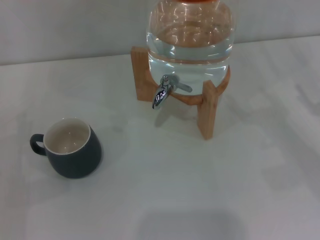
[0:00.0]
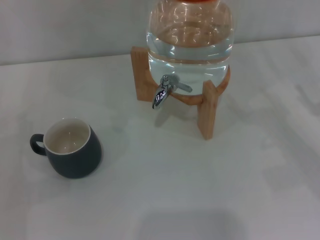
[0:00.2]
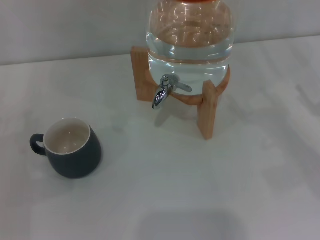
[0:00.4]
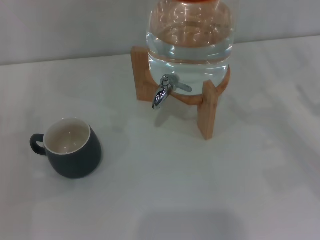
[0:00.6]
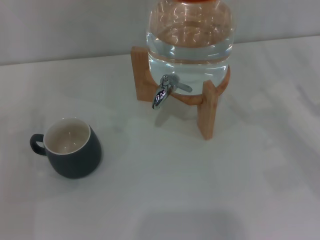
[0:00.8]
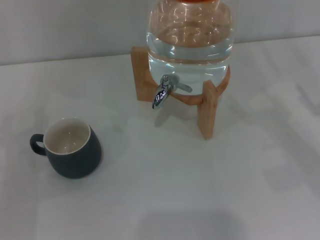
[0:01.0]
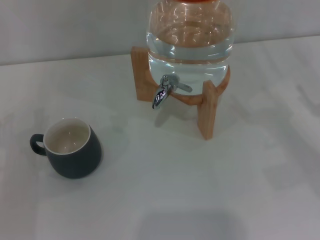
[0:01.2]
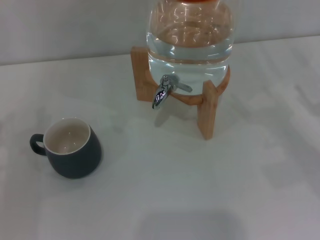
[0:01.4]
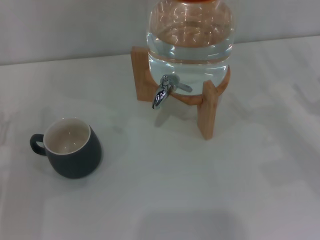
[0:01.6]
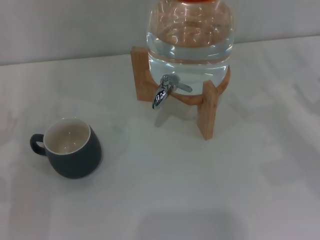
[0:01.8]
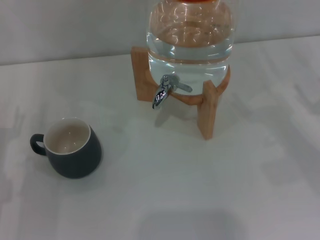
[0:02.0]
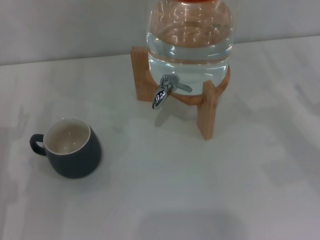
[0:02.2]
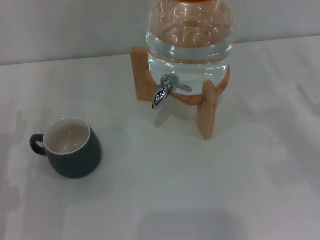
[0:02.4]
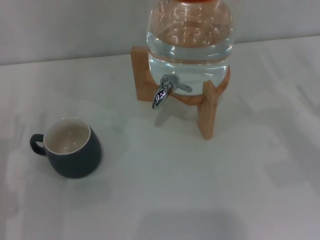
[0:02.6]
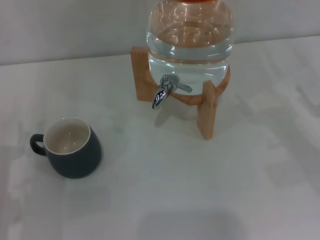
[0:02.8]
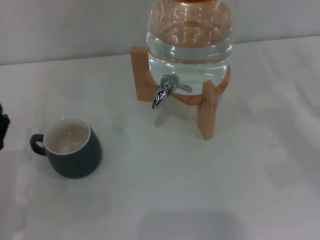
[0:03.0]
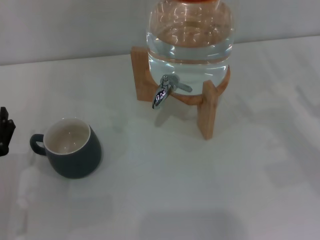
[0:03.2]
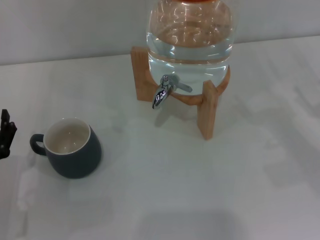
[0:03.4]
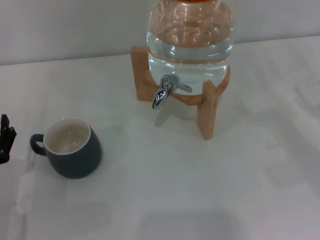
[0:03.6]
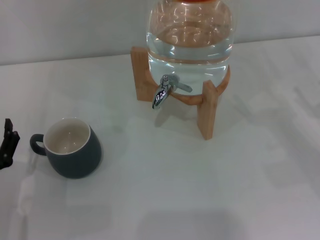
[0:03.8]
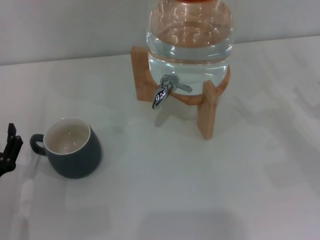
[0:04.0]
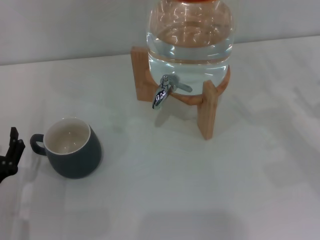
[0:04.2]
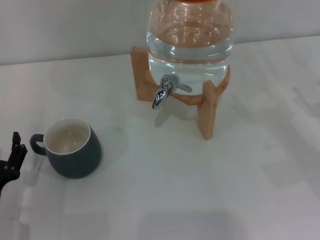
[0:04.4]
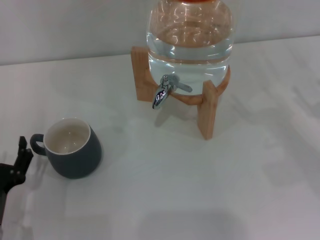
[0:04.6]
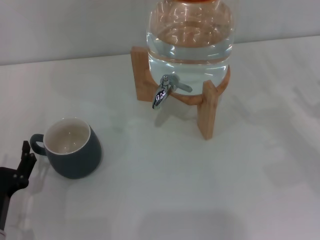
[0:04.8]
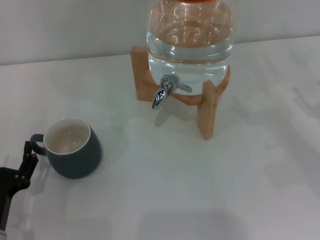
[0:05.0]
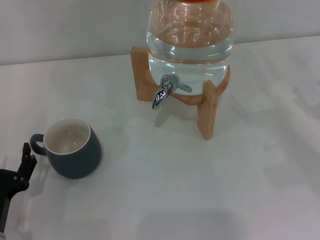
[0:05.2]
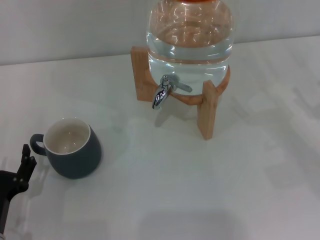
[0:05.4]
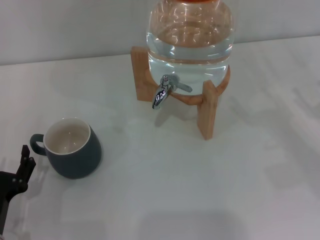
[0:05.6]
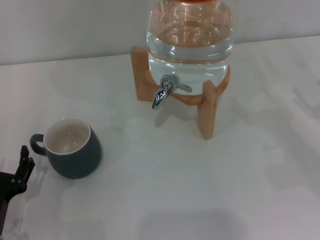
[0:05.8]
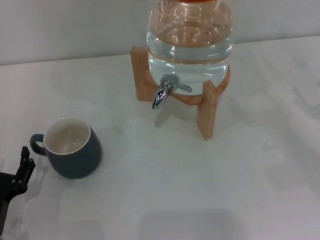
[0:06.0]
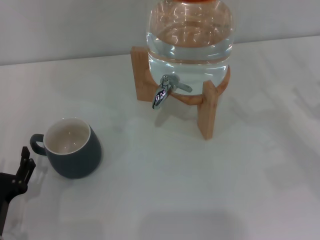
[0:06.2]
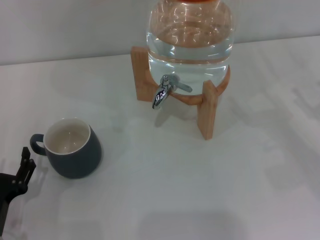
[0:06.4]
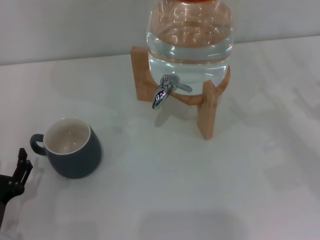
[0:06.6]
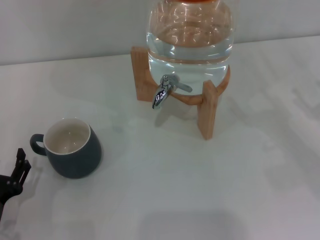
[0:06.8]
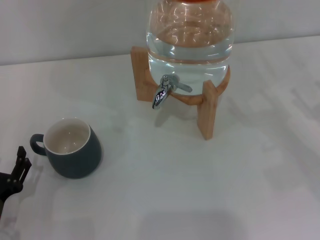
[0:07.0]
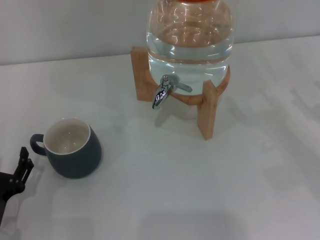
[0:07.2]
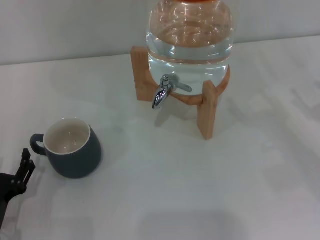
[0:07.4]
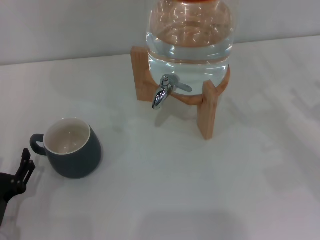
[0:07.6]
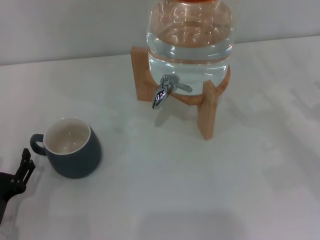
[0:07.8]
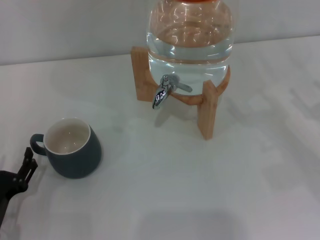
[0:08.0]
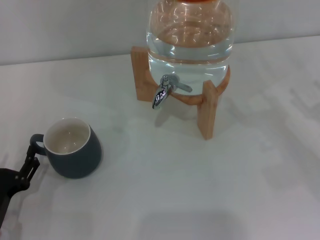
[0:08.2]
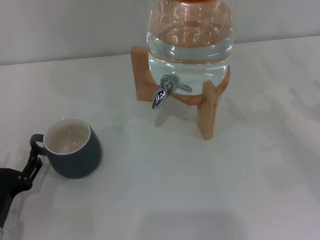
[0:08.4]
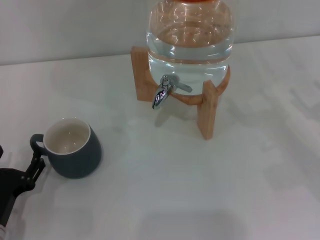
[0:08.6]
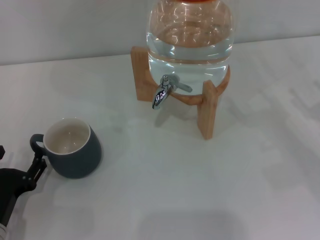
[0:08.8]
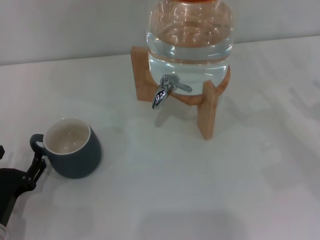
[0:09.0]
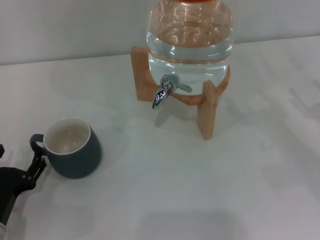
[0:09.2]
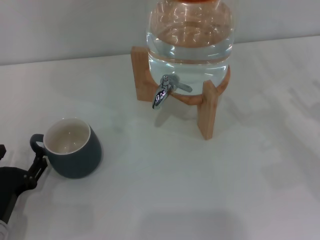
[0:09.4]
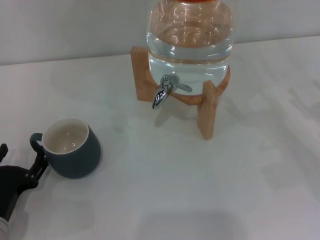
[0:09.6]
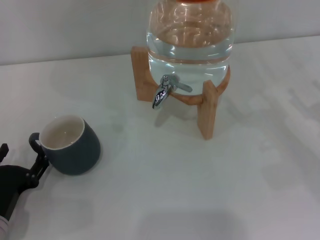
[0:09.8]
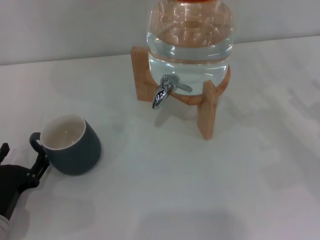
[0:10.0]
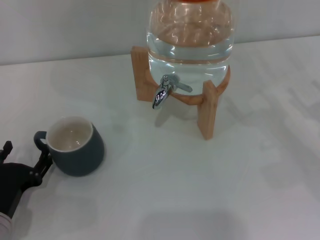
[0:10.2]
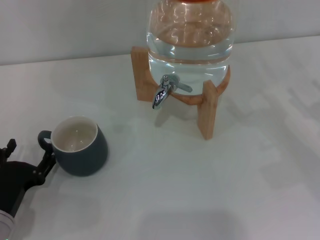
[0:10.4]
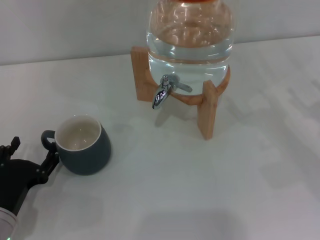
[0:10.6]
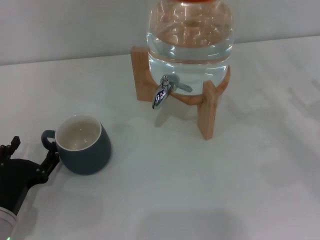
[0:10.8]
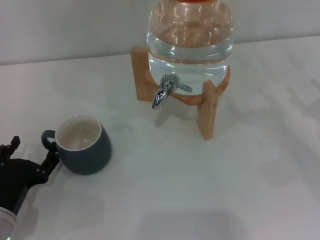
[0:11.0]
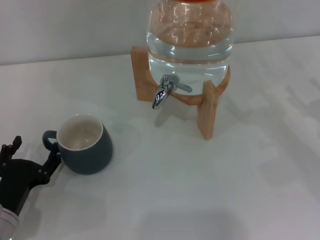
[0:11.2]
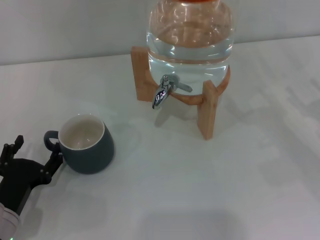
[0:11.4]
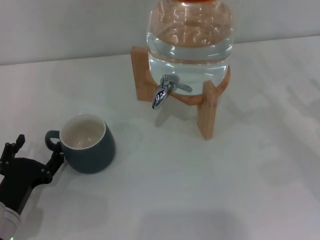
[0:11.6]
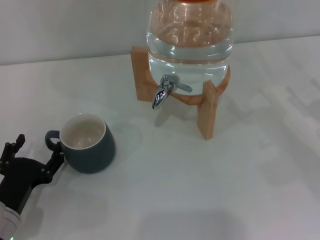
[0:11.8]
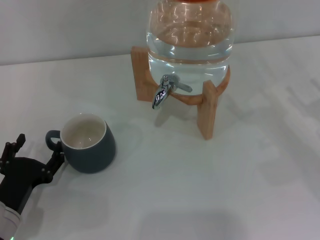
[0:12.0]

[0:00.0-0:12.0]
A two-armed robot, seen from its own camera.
Task of the whole recording: the left gripper pick up the black cup and place it horizontally under the faucet, the right gripper turn on the faucet to fill the cup, and then turn off the faucet.
0:03.0 to 0:06.0: The grippers move only a little.
0:07.6 to 0:12.0: The grippers move only a little.

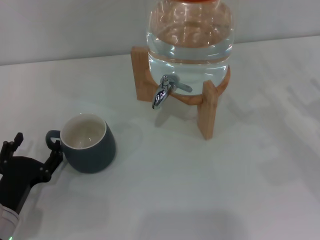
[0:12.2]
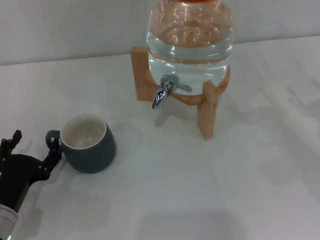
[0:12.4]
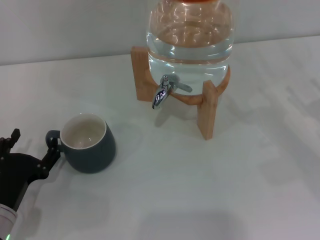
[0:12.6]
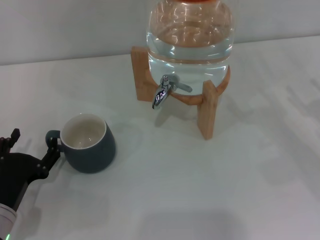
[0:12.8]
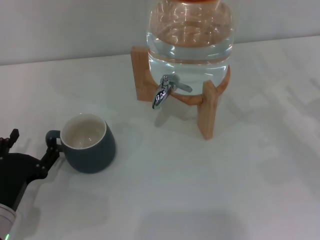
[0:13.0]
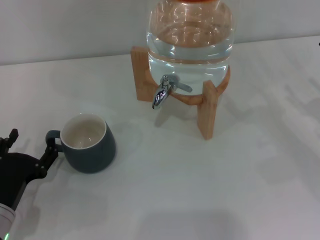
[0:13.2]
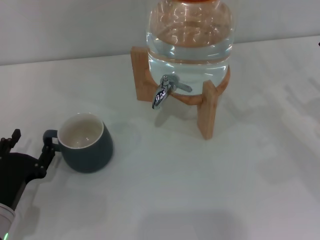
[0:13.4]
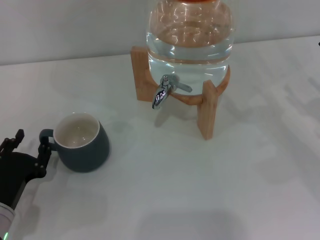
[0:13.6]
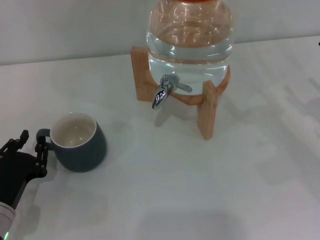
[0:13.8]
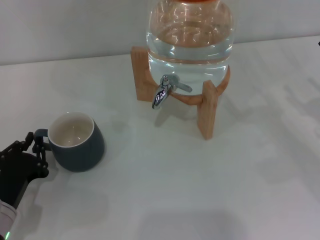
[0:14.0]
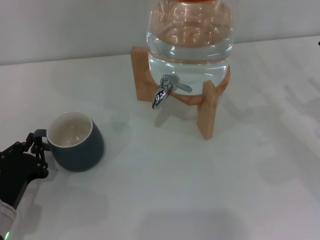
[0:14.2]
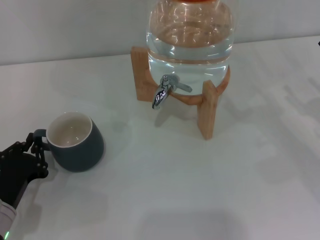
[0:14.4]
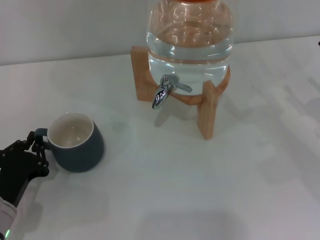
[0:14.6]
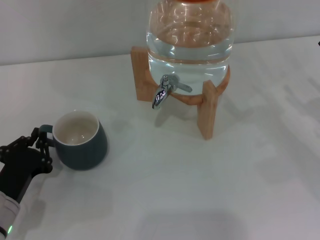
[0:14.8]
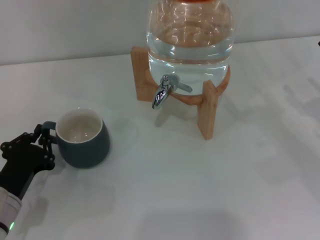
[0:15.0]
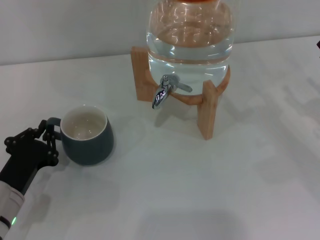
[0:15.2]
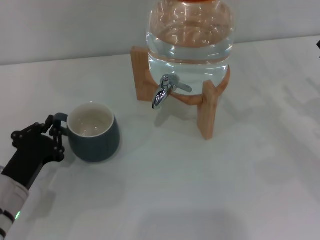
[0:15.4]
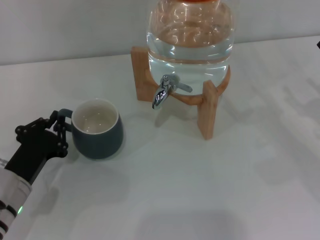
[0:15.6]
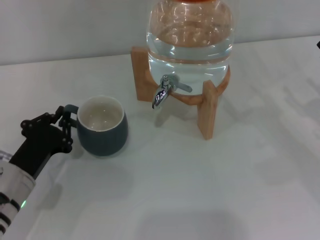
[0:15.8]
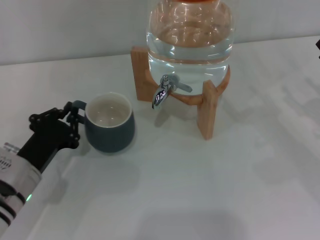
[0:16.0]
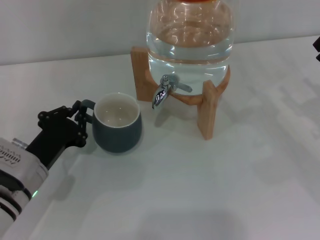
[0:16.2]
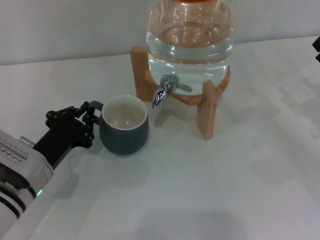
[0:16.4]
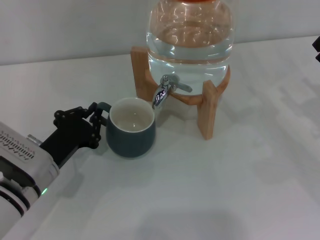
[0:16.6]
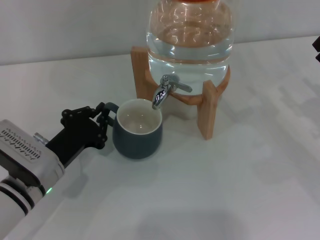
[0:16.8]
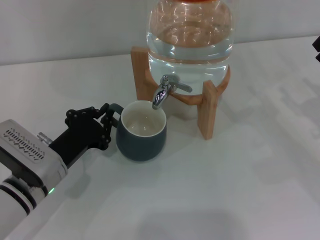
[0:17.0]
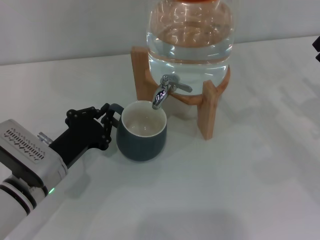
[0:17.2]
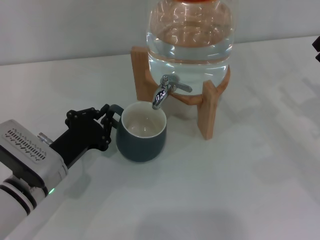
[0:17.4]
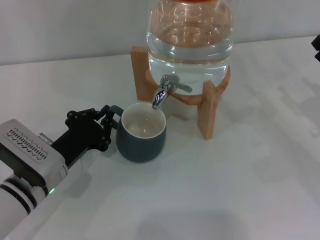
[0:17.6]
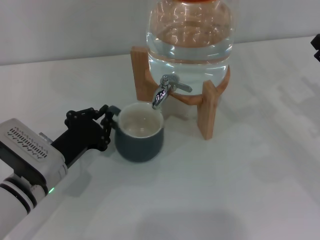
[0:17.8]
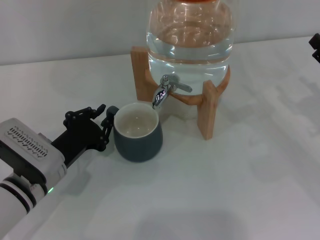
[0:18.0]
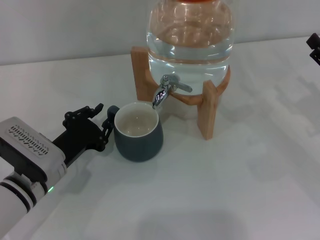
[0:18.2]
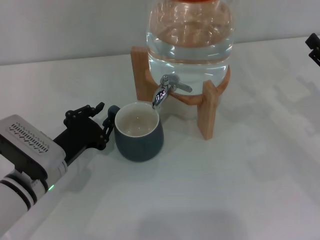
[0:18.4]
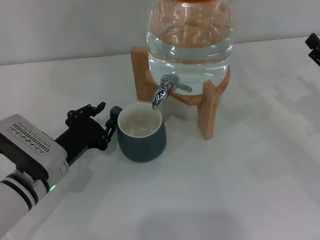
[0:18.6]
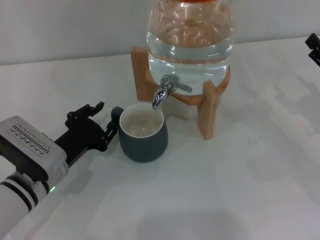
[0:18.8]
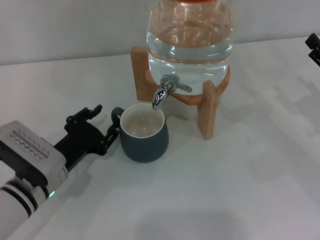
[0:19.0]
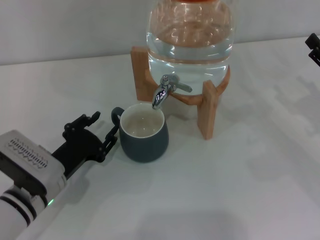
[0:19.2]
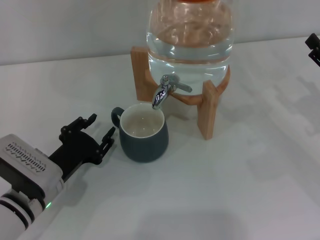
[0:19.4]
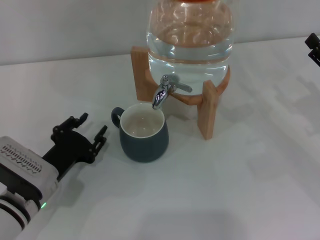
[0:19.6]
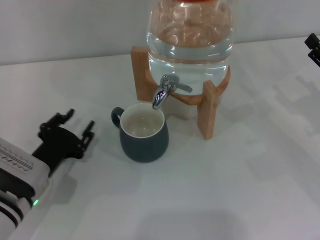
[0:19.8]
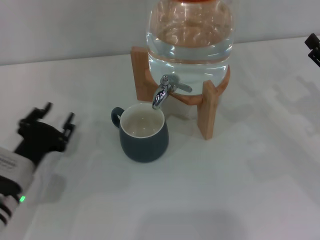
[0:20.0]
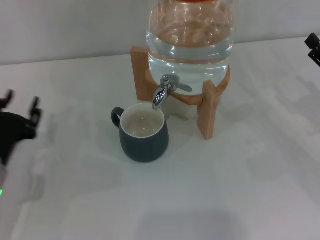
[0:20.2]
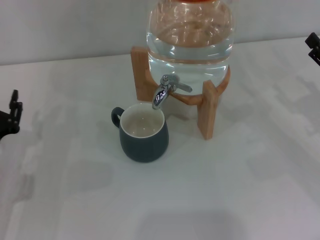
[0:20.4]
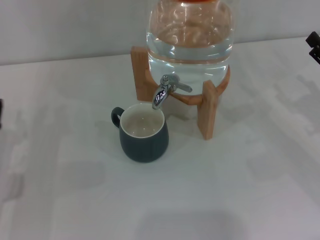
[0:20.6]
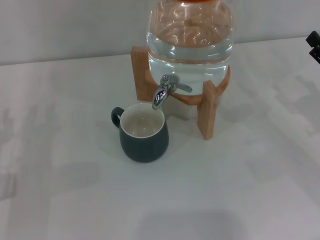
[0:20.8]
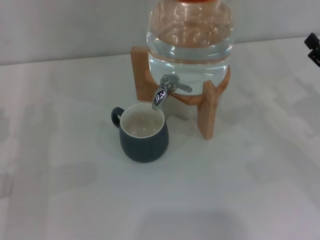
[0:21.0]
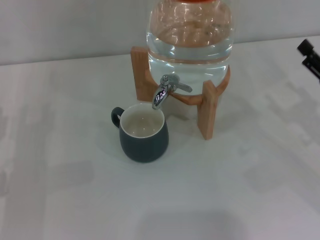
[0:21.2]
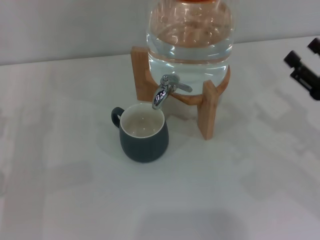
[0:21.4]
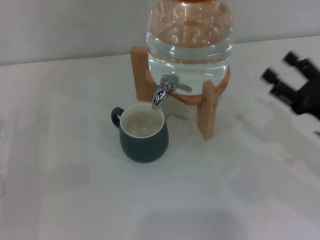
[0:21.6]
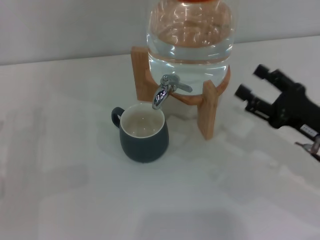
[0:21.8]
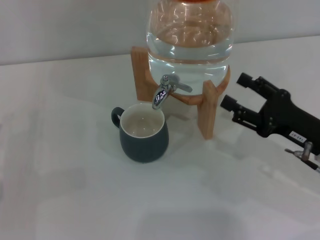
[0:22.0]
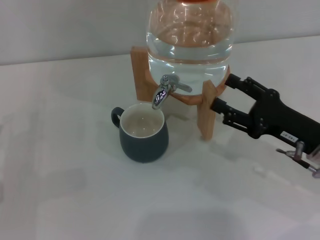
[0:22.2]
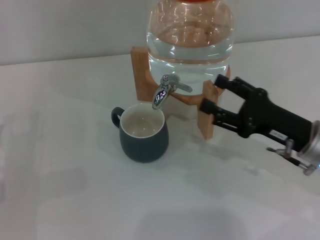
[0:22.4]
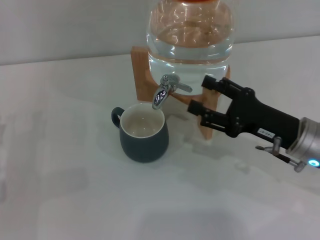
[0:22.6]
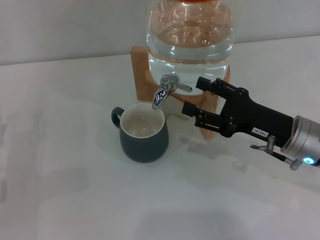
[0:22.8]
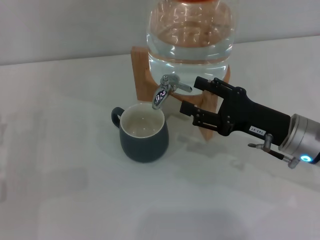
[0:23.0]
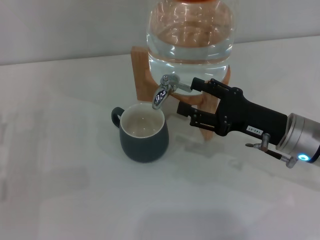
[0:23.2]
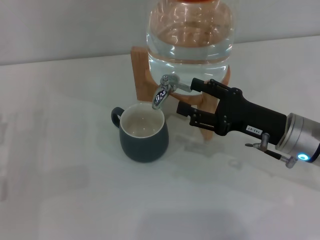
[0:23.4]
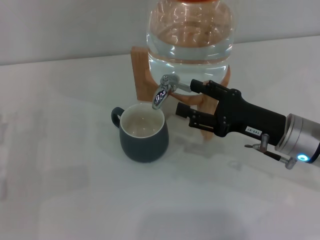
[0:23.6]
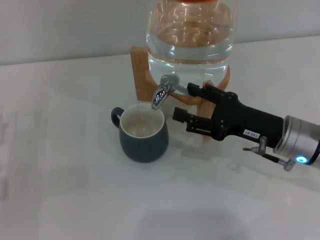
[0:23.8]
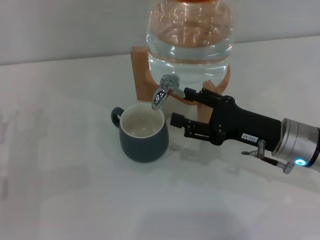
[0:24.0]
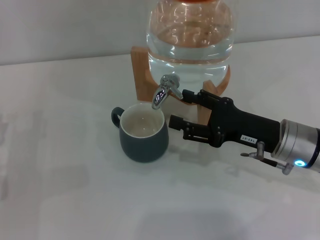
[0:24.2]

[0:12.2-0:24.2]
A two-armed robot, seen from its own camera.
Task of the whole recording: the left gripper pick up the black cup and place it horizontally under the faucet, the right gripper turn on the faucet to fill the cup, and then turn off the faucet.
Step, 0:12.2 to 0:19.4: Move the cup beneath the water dispenser nozzle with the left gripper.
0:12.2 to 0:13.8: The left gripper closes its fingers.
0:13.8 to 0:15.2: The left gripper closes up.
0:15.2 to 0:16.6: The left gripper shifts by about 5 cm.
0:16.6 to 0:18.2: Both grippers stay about where they are.
0:18.2 to 0:19.8: The left gripper opens.
0:19.8 to 0:21.2: The left gripper shifts roughly 10 cm to the left.
0:21.2 to 0:22.6: The right gripper shifts roughly 10 cm to the left. Meanwhile the left gripper opens.
0:22.6 to 0:24.2: The grippers make only small movements.
